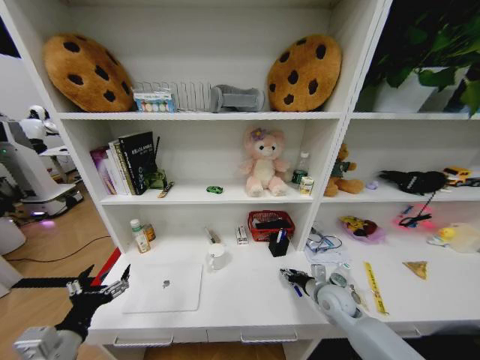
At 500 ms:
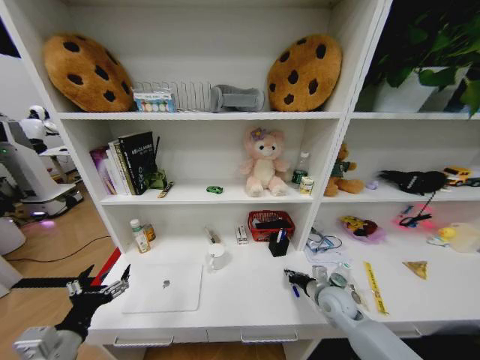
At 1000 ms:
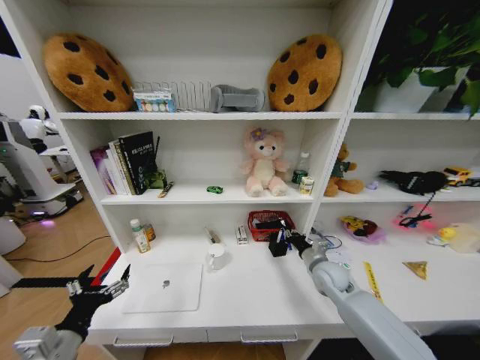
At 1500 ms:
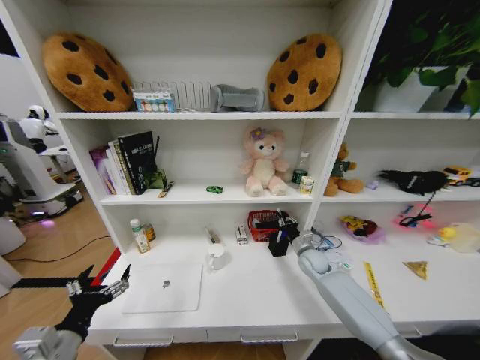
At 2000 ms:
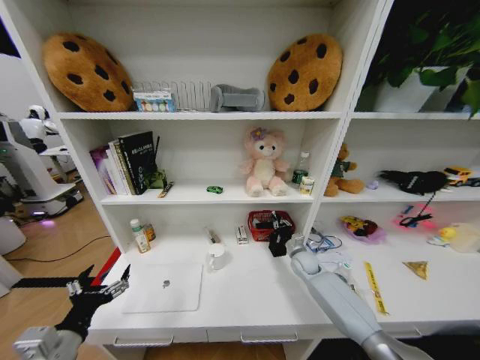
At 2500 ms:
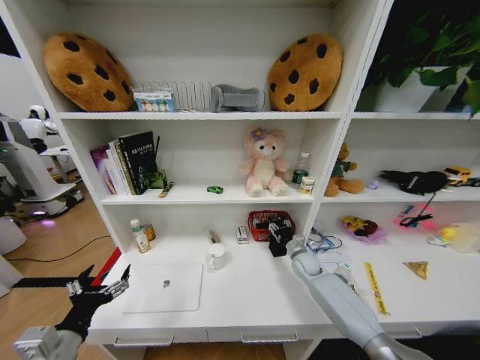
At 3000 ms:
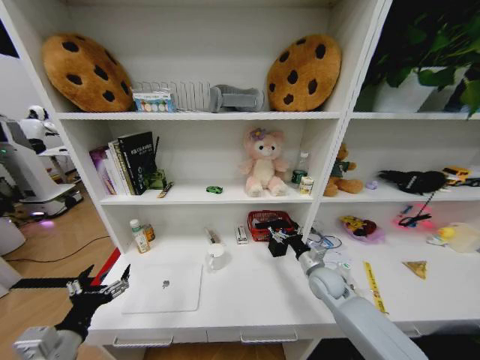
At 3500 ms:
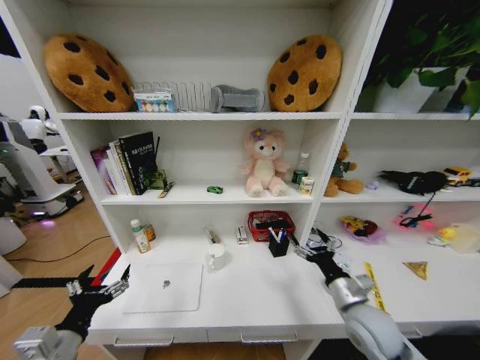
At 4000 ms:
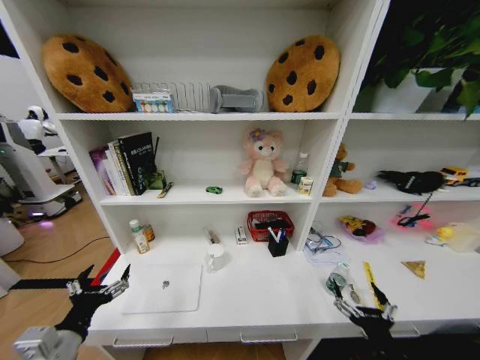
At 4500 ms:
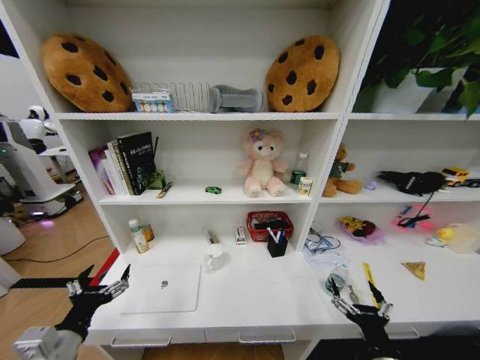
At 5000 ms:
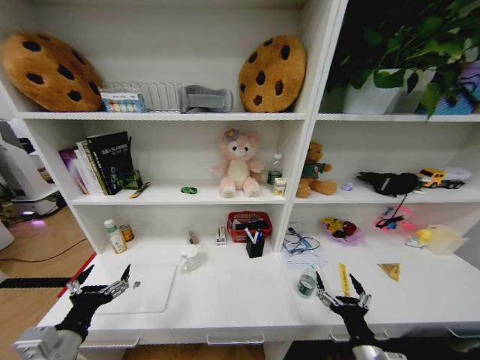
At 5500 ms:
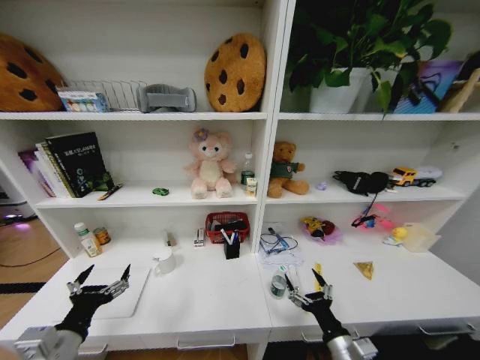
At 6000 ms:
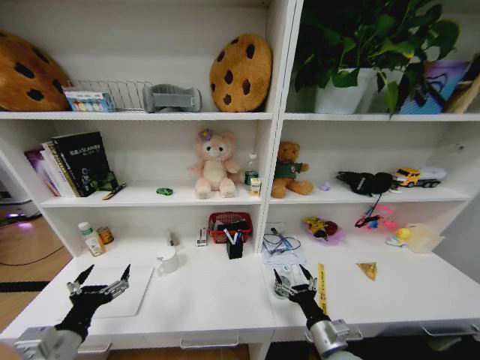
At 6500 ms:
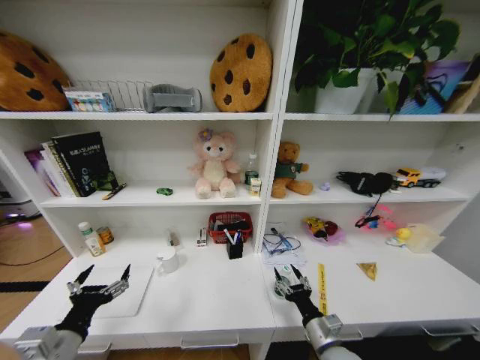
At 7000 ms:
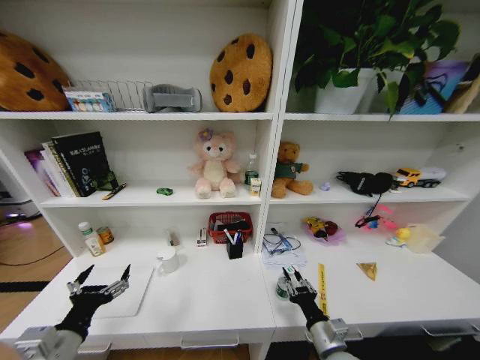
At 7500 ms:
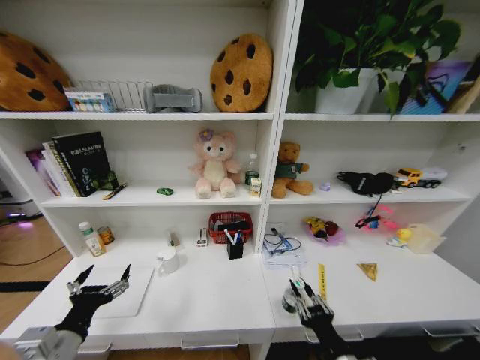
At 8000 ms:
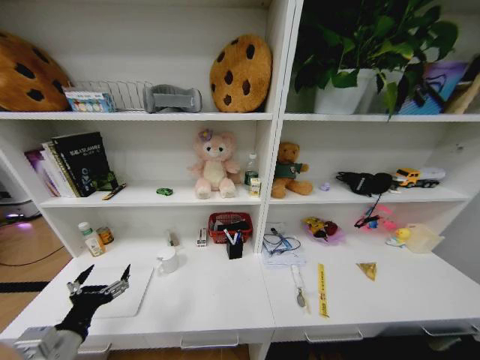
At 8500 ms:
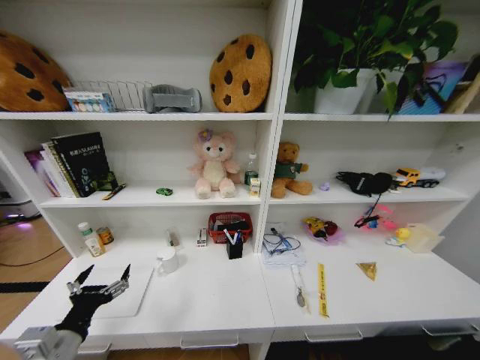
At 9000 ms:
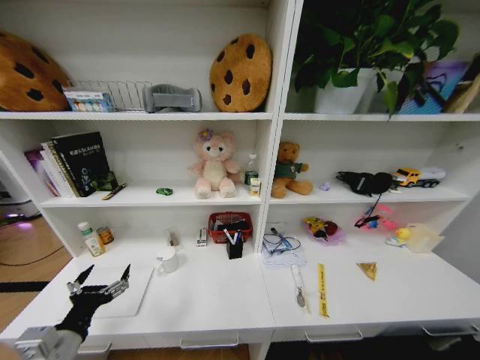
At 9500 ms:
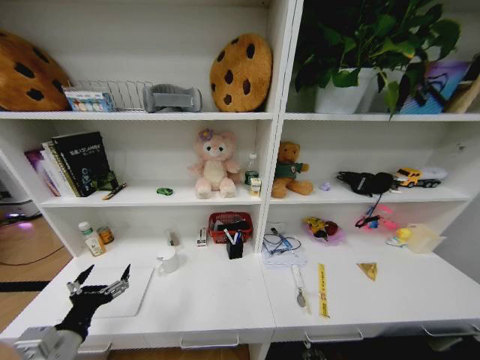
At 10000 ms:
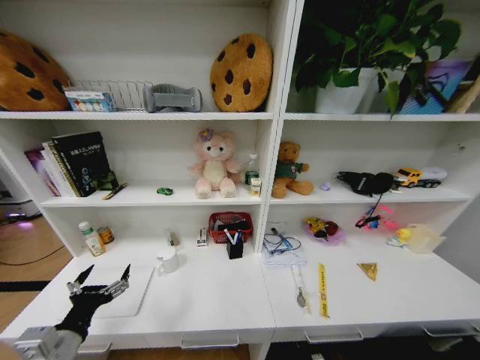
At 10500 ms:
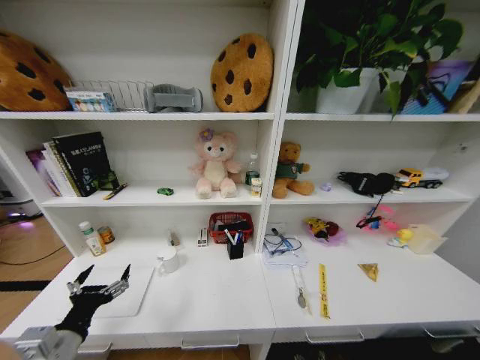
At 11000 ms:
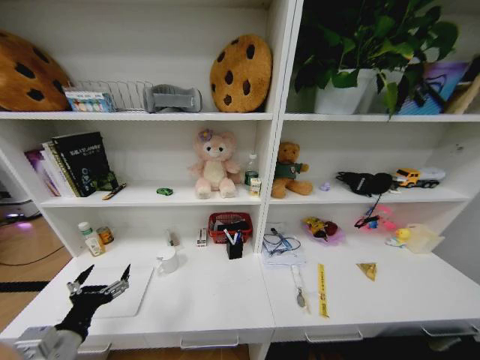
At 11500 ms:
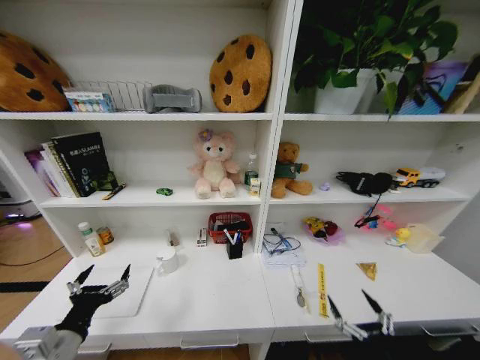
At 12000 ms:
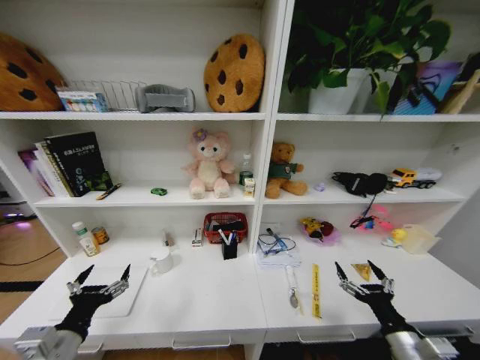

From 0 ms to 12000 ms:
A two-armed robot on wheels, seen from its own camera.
Task of the whole recording: Organize the objects on the table.
From 0 ms to 2000 ms: The right gripper moves forward, about 15 cm, and closes its fingers.
From 2000 ms to 4000 ms: The right gripper goes some 40 cm backward, and opens its fingers.
From 4000 ms to 6000 ms: The right gripper is displaced forward, to the left and downward by about 10 cm.
From 6000 ms to 8000 ms: The right gripper goes about 25 cm backward, and closes up.
From 8000 ms to 10000 ms: The right gripper shifts roughly 40 cm downward and forward.
From 10000 ms to 12000 ms: The right gripper travels upward by about 40 cm, and opens.

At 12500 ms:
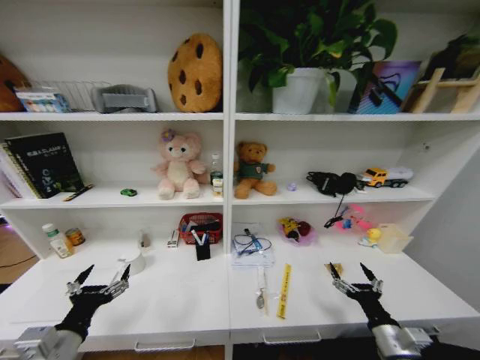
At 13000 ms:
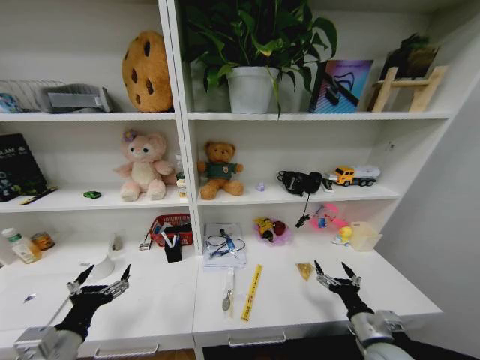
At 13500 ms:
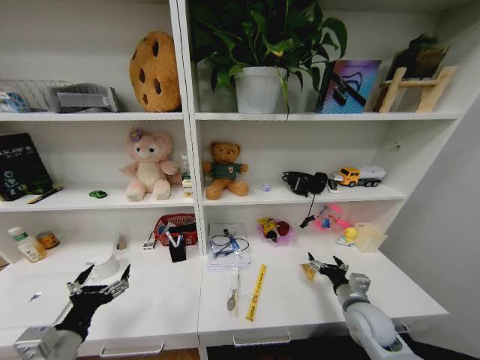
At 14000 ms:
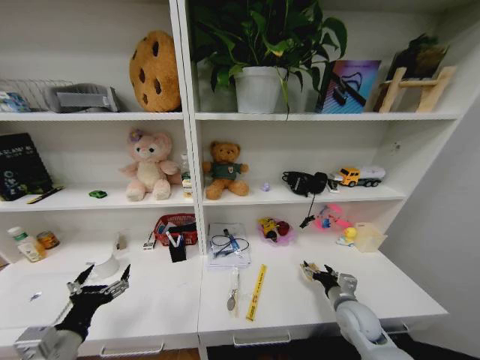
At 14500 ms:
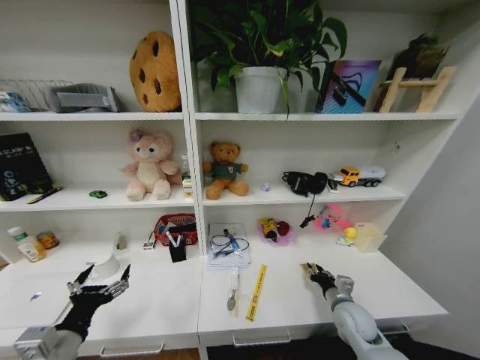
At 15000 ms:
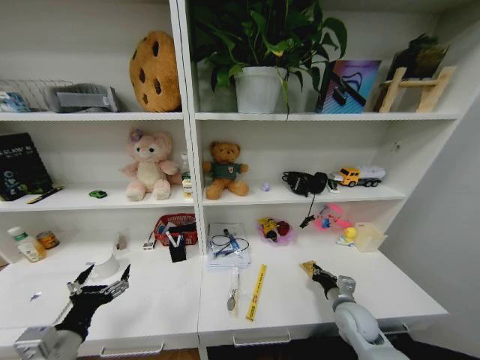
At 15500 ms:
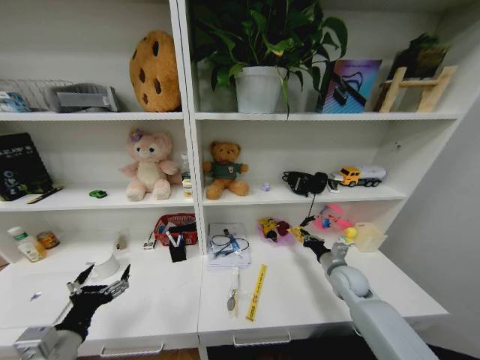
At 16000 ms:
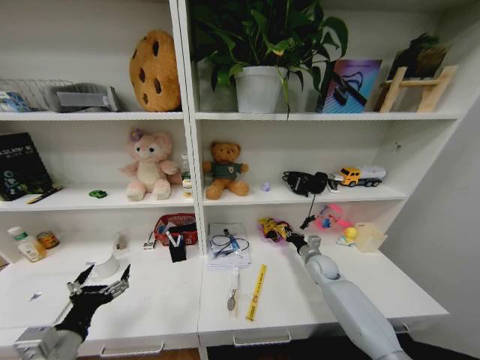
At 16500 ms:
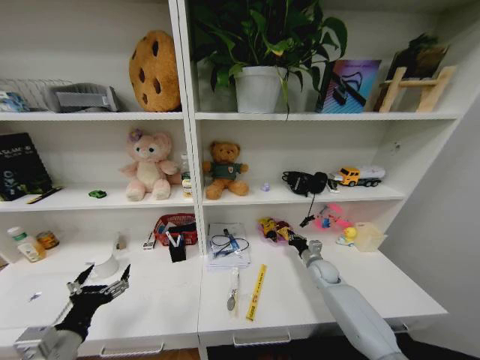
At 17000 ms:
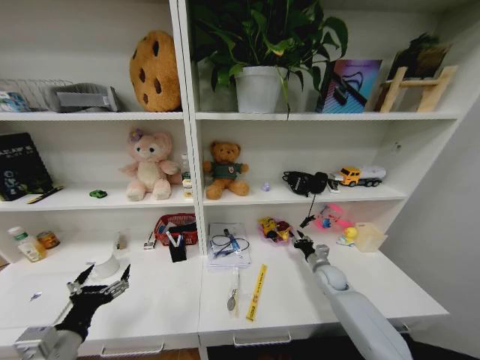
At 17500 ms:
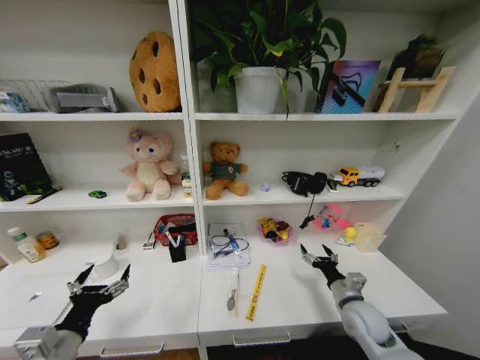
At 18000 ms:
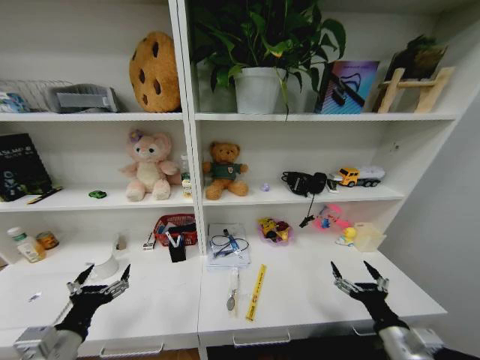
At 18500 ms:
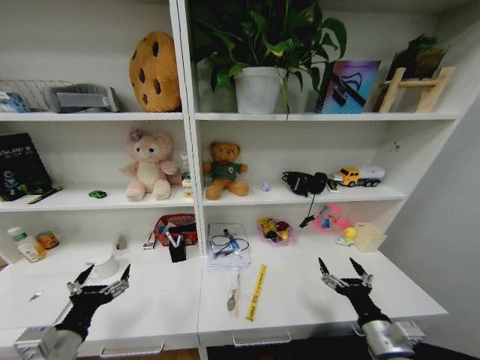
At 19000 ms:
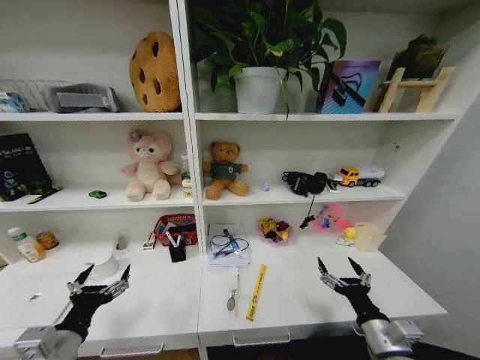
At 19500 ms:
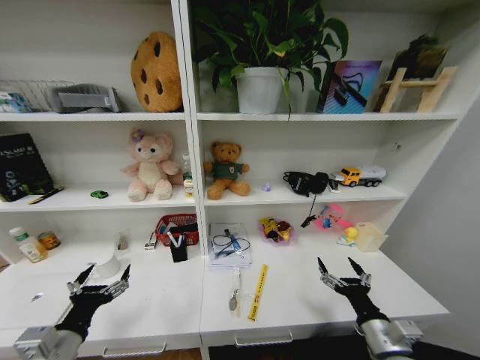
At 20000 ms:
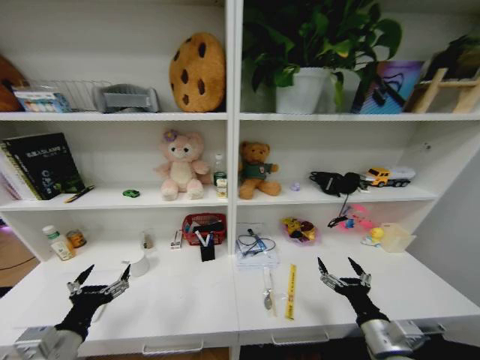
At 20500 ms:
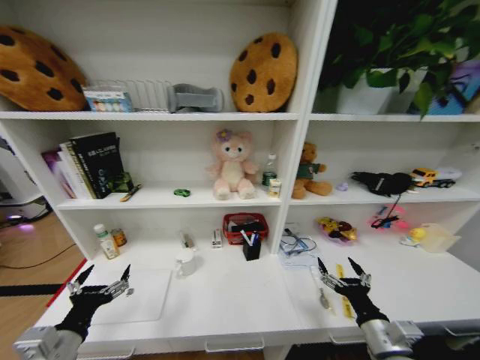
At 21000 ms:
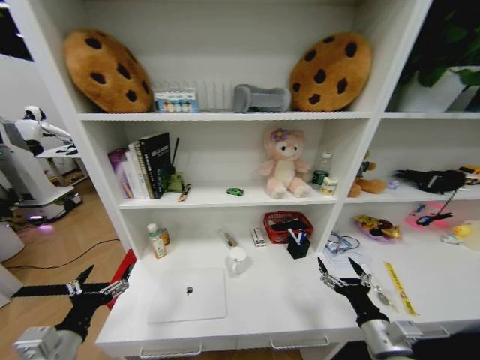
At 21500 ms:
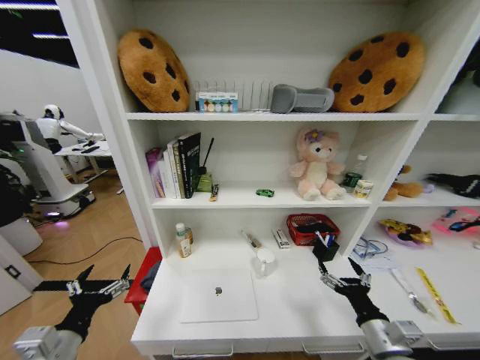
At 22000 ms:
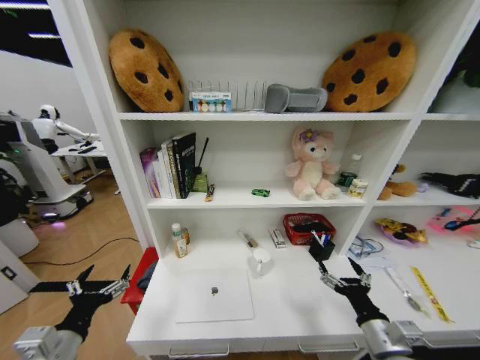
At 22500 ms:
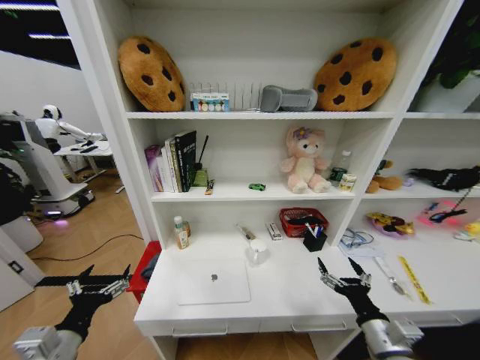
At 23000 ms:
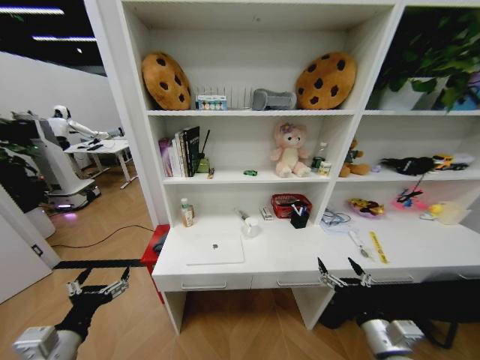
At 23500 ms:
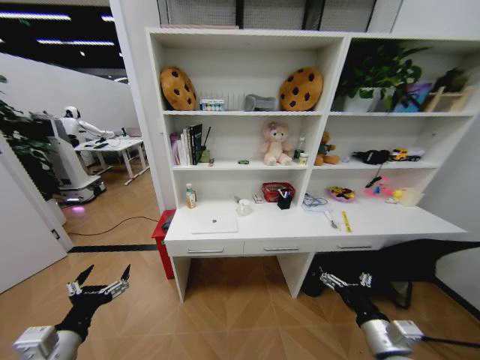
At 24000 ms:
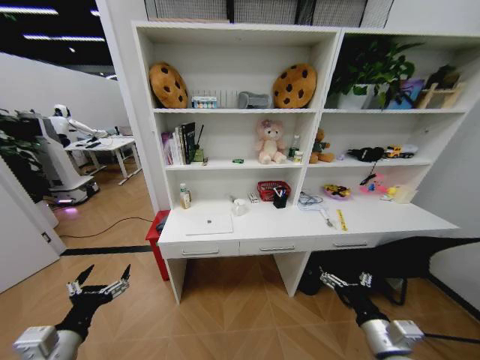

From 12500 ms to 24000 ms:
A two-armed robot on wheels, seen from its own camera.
Task of the whole recording: Organize the objects on the table.
From 12500 ms to 14500 ms: The right gripper heads forward, covering roughly 15 cm, and closes up.
From 14500 ms to 16500 ms: The right gripper moves forward, about 15 cm, and closes its fingers.
From 16500 ms to 18500 ms: The right gripper is displaced backward by approximately 30 cm, and opens.

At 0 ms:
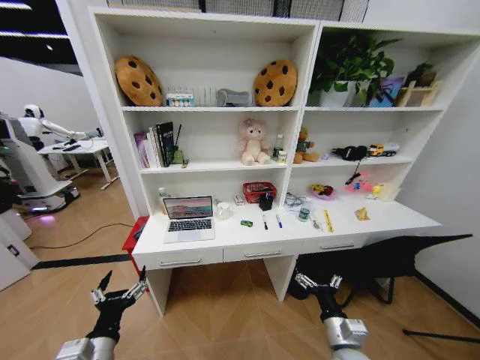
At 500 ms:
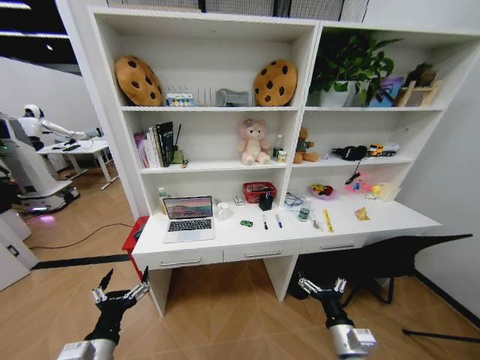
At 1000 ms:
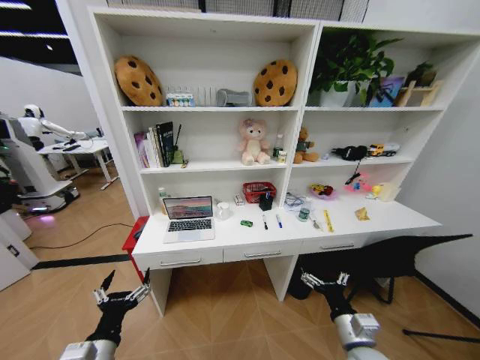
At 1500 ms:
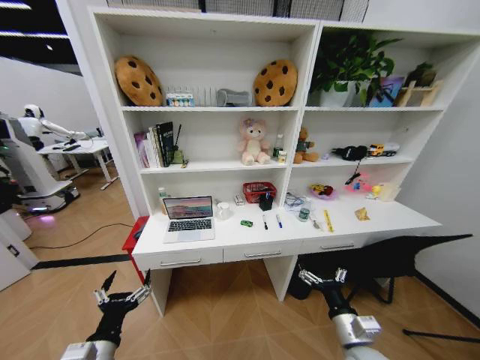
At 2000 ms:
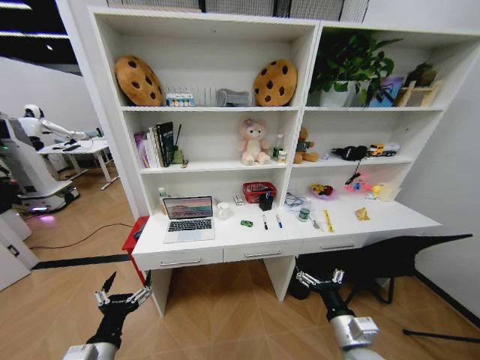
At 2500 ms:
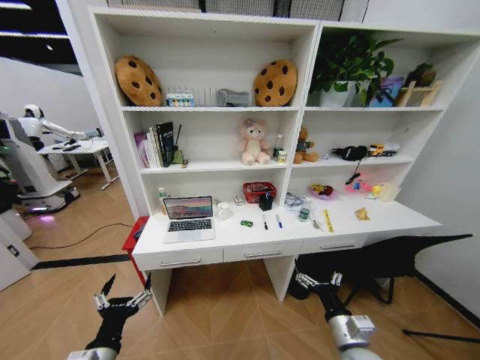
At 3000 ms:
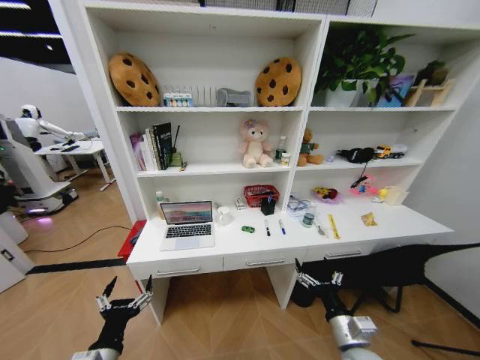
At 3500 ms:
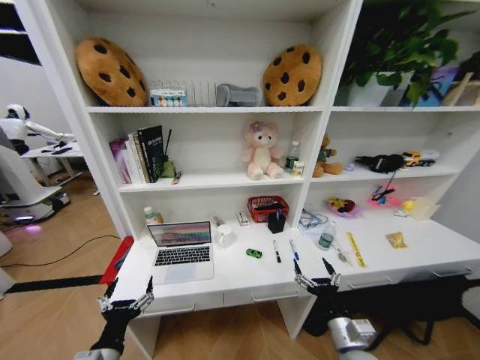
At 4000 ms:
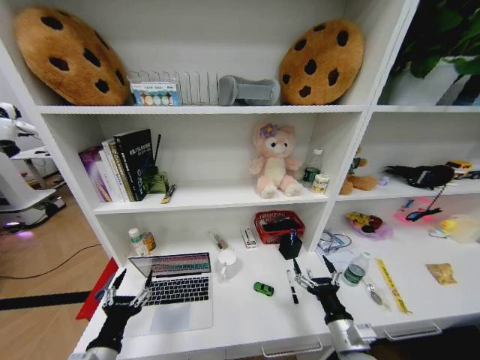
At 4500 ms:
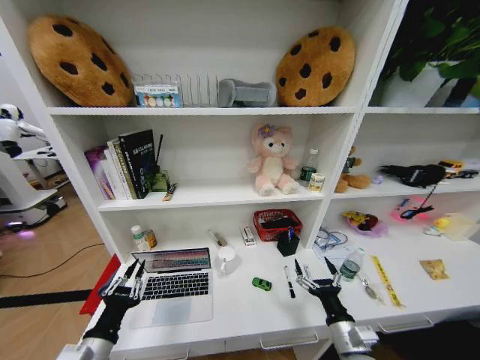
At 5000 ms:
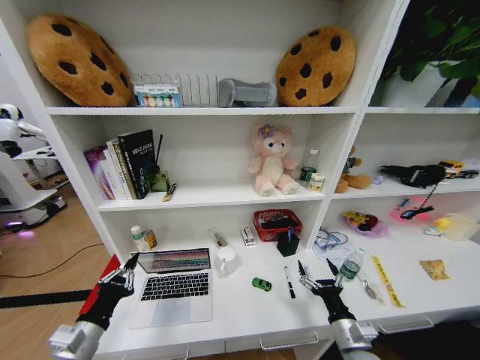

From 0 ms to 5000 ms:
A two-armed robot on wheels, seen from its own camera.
Task of the whole recording: Organize the objects on the table.
From 2500 ms to 5000 ms: The left gripper goes roughly 5 cm to the left, and closes.
